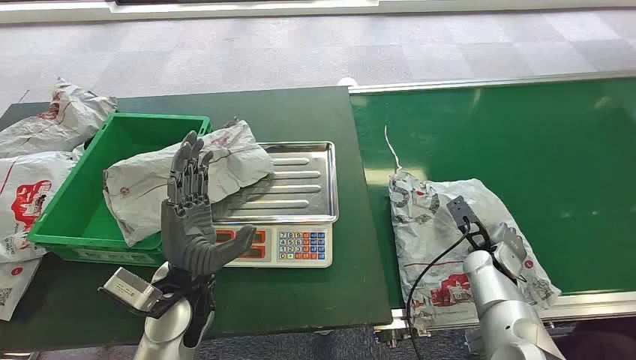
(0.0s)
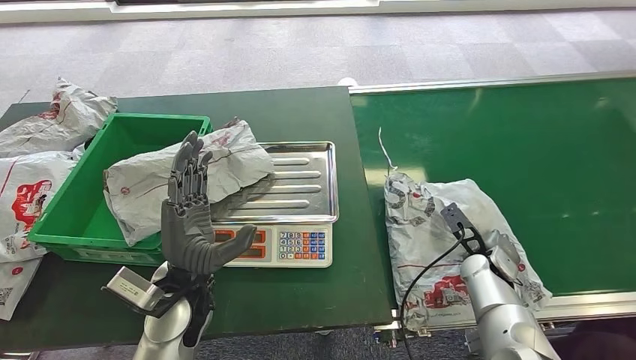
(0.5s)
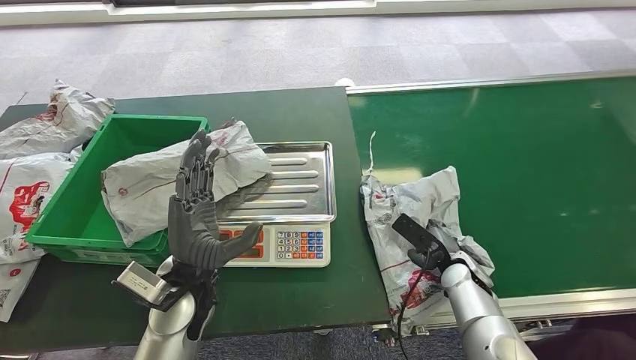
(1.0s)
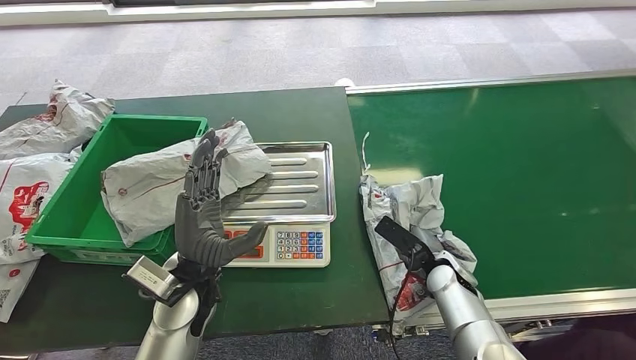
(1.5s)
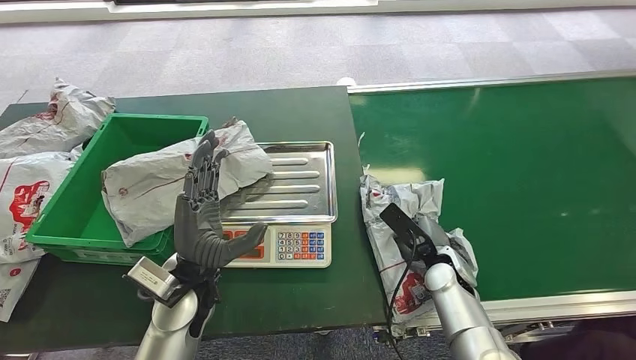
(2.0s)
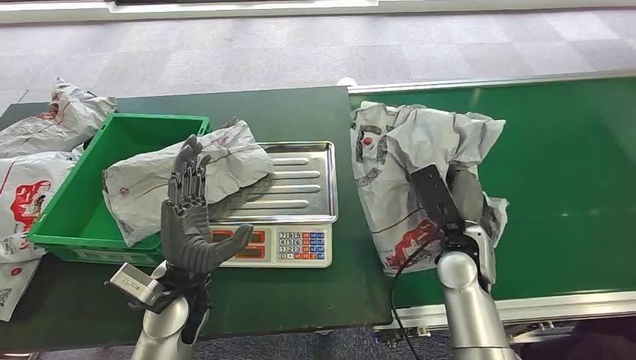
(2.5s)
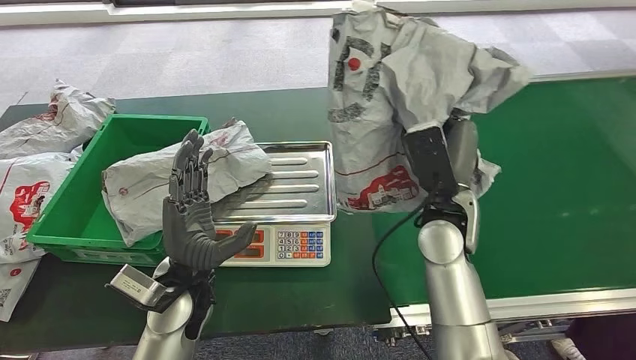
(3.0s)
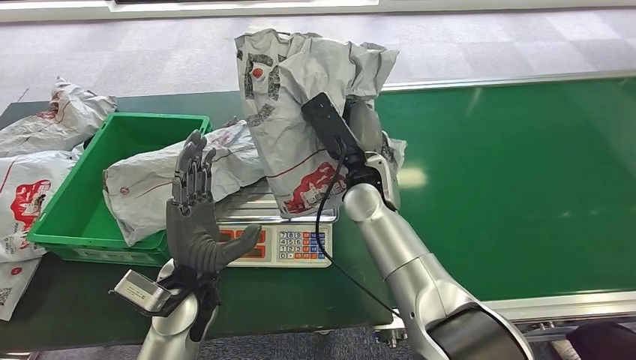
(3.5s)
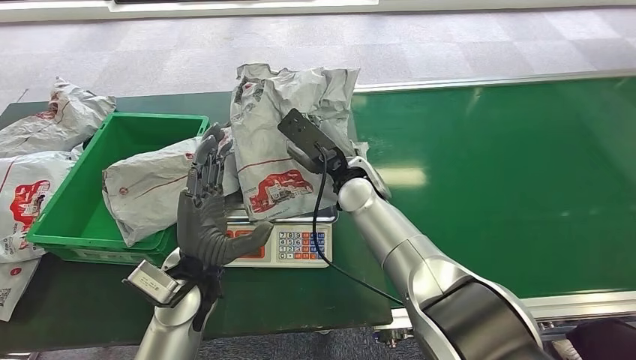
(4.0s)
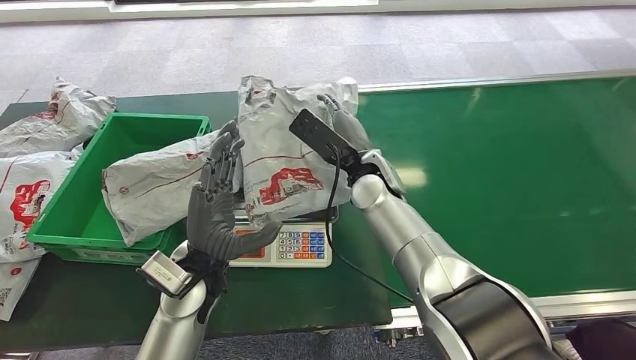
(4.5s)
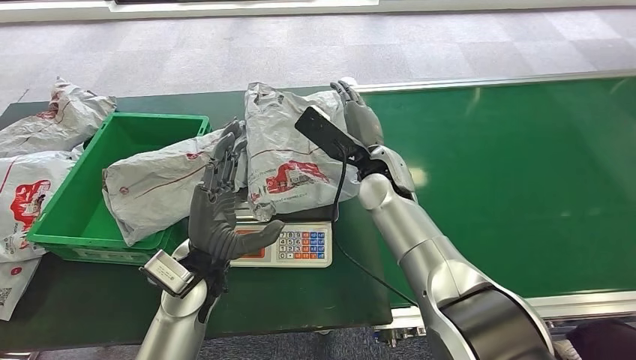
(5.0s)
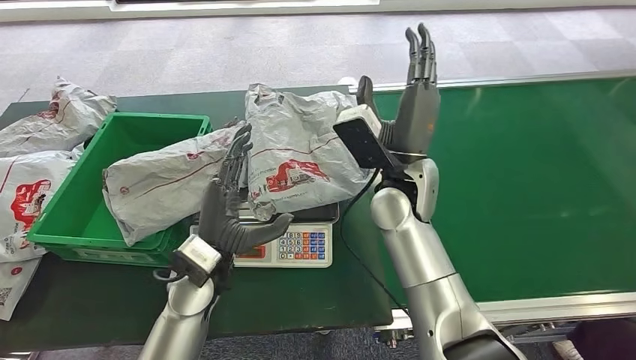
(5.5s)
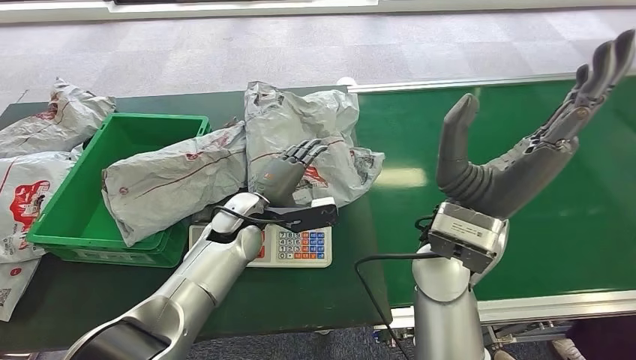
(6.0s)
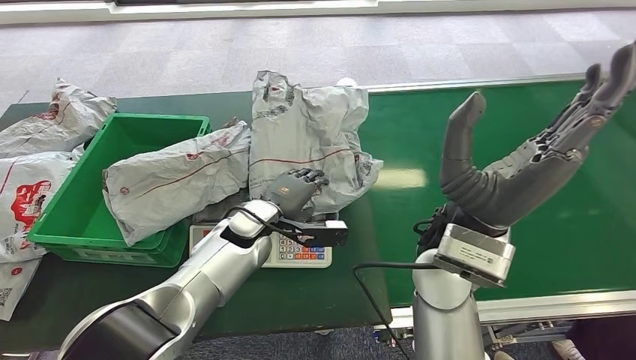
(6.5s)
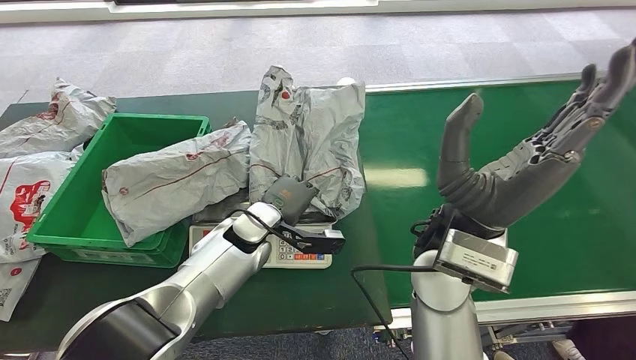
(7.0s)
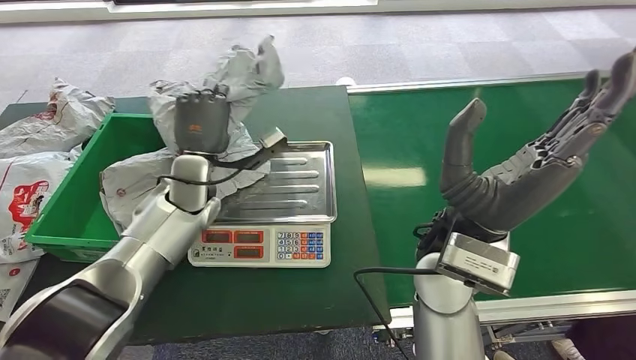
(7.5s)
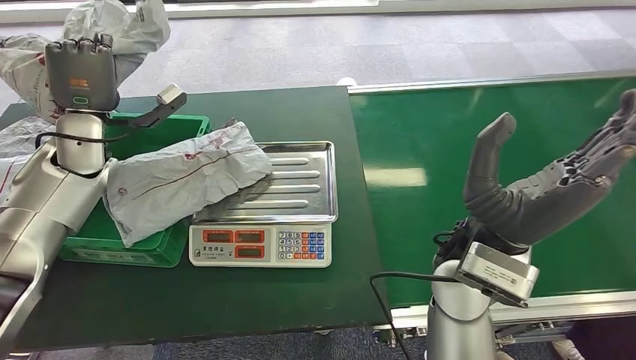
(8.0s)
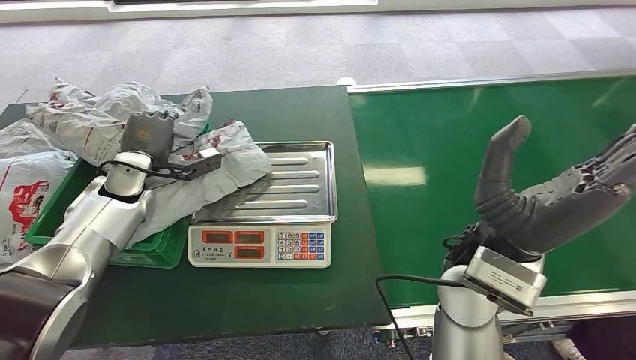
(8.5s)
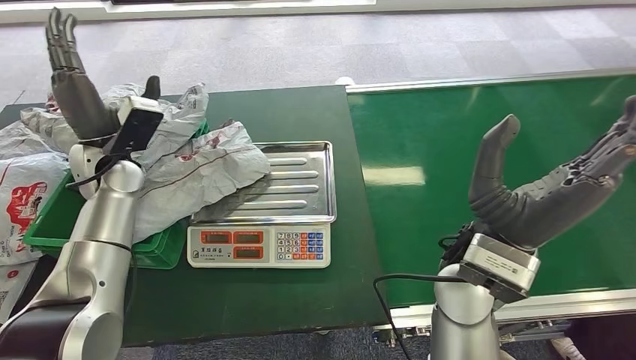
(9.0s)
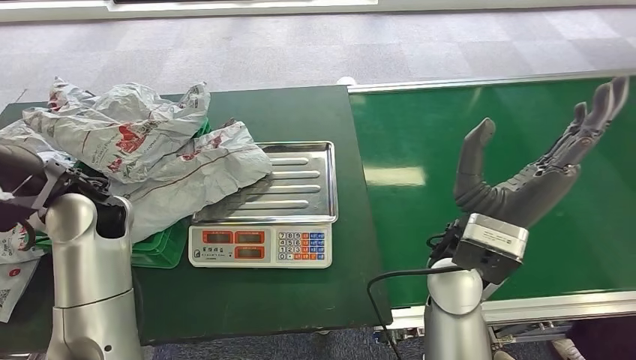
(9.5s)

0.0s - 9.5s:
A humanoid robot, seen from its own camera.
Step, 0.0s - 2.5s: Pick up the package from the conveyor belt.
Step, 3.0s - 5.0s: Place the package onto the inbound machine.
Step, 5.5s - 7.5s: Pick up the package from the inbound machine.
Step, 8.0s - 9.5s: Place the package into the parcel locker.
2.0s - 4.0s: The right hand travels to the left, upward and forward by approximately 25 cm.
